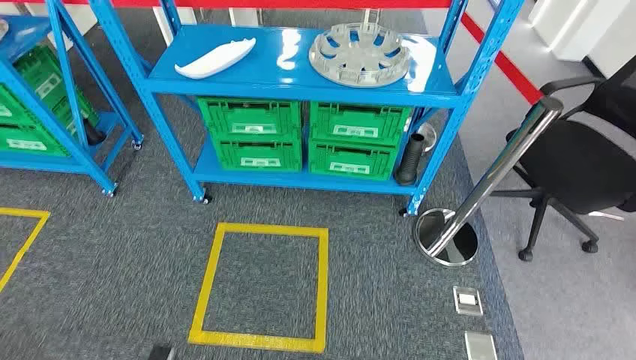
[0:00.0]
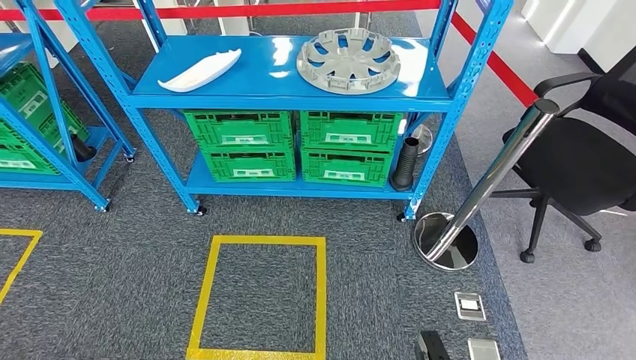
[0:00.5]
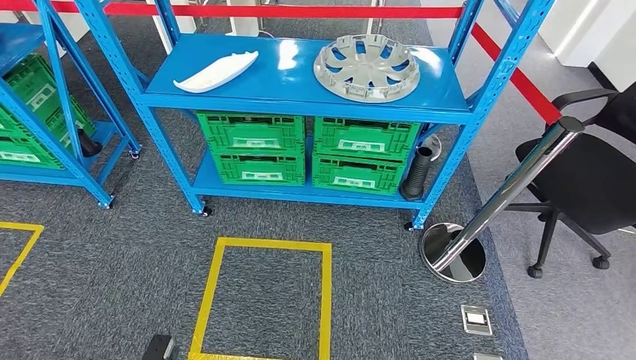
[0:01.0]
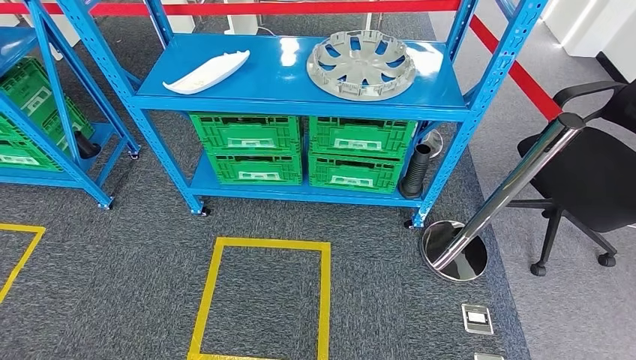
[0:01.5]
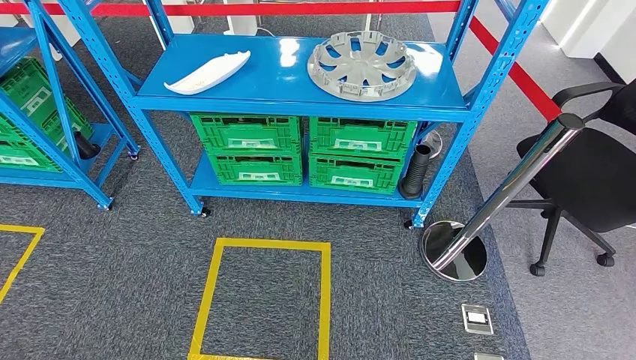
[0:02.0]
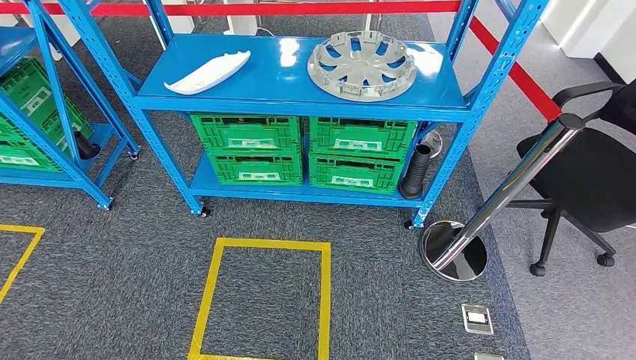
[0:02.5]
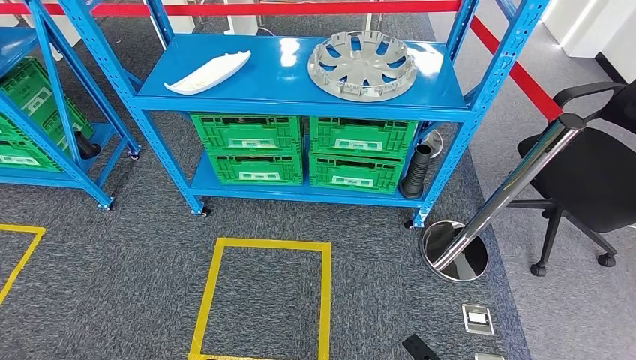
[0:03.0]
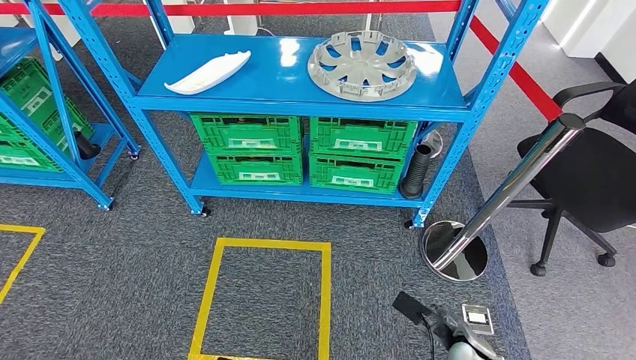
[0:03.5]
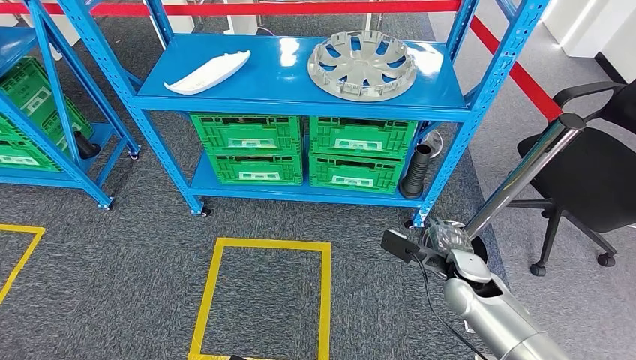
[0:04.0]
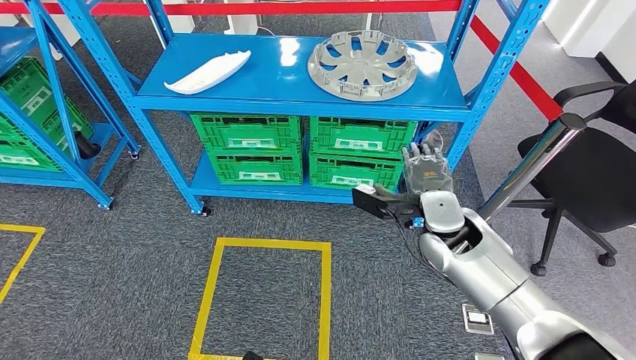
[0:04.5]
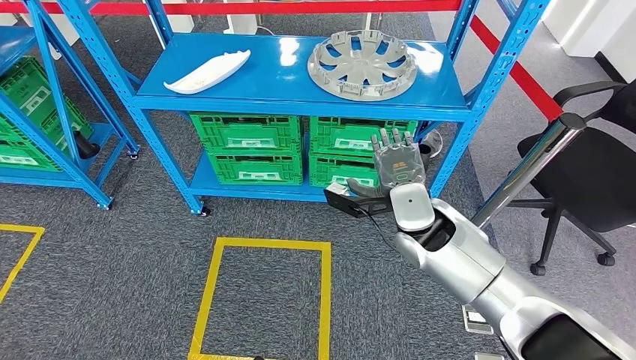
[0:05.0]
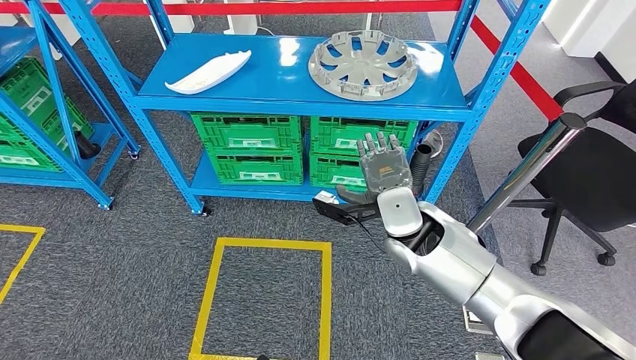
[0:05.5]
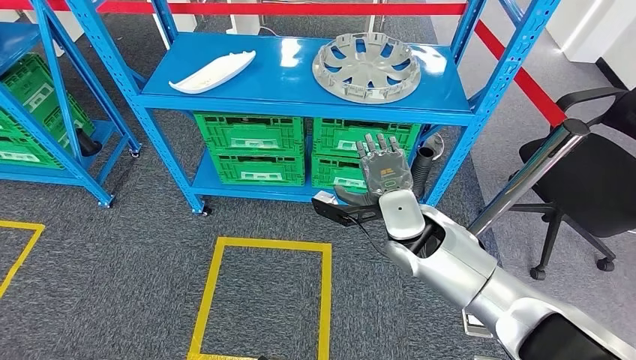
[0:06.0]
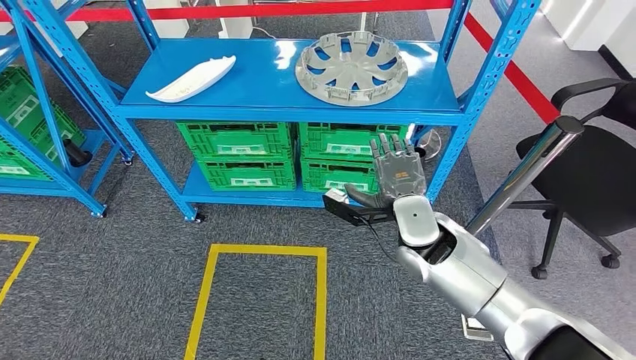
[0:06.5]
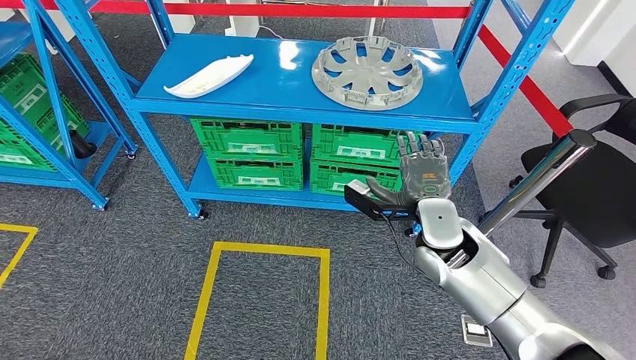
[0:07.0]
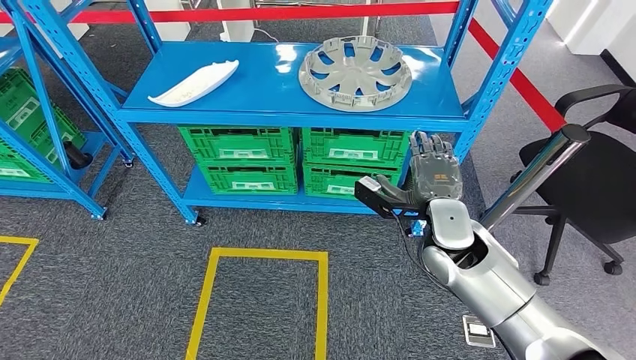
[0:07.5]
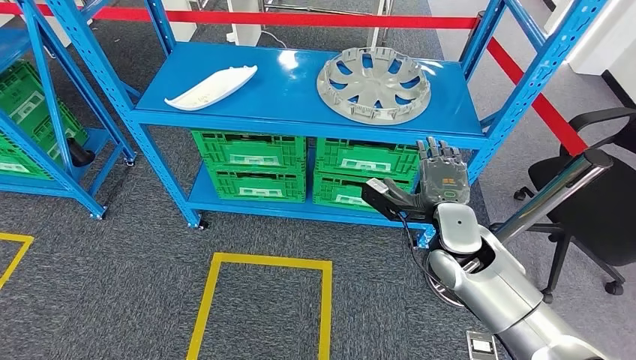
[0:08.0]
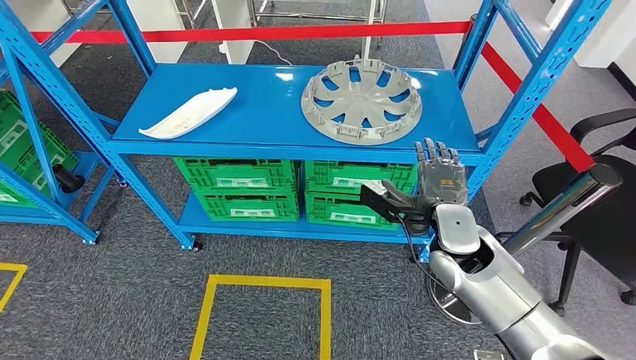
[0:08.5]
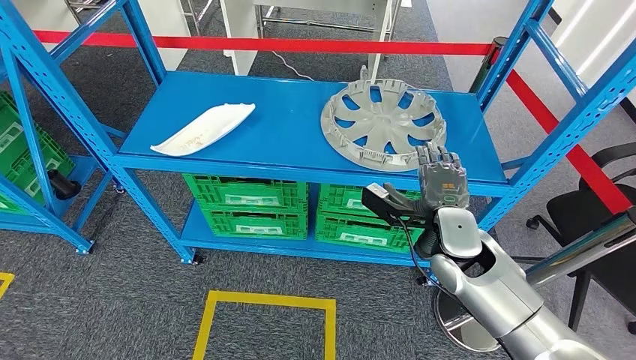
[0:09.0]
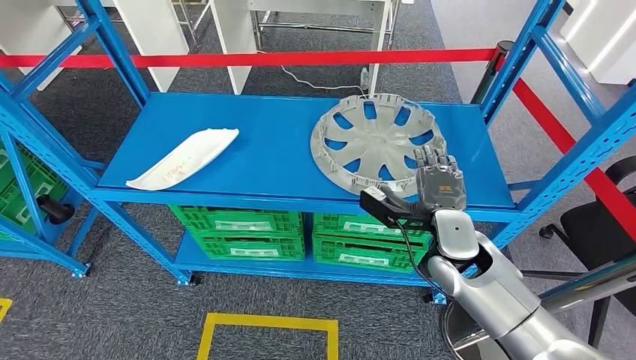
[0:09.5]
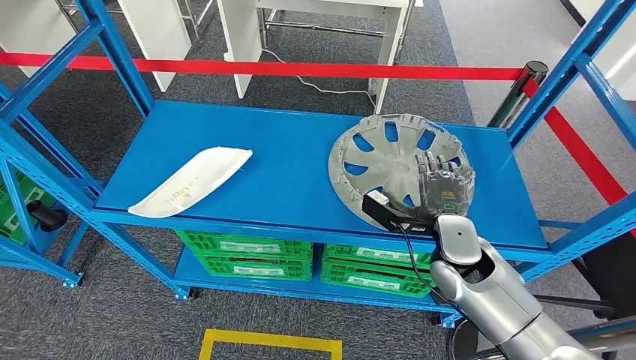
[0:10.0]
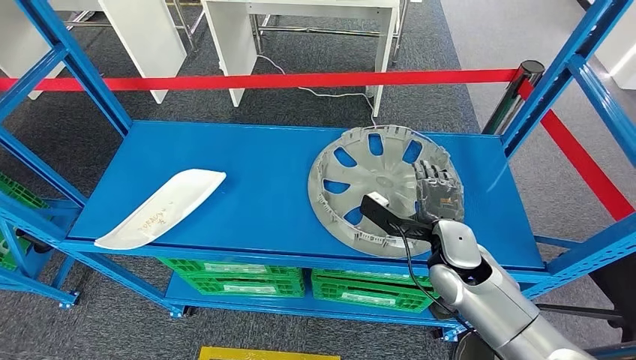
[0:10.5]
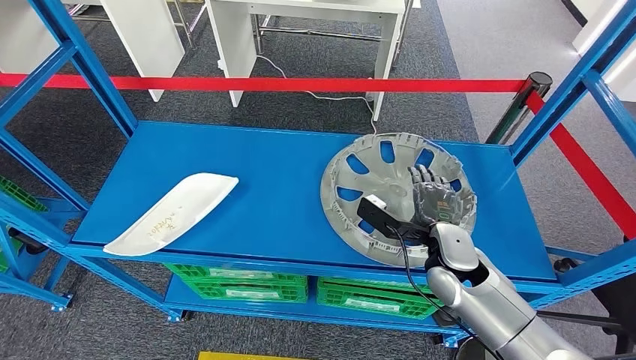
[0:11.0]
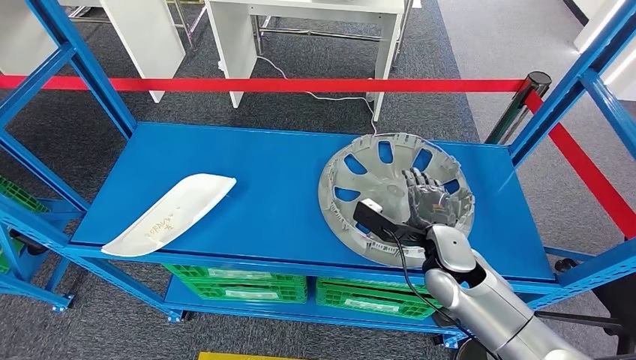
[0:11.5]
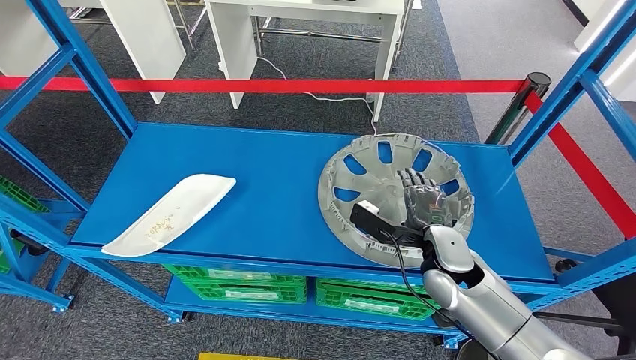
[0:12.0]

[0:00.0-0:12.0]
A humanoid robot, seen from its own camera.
0:02.0 to 0:04.0: The right hand travels forward and upward by approximately 35 cm.

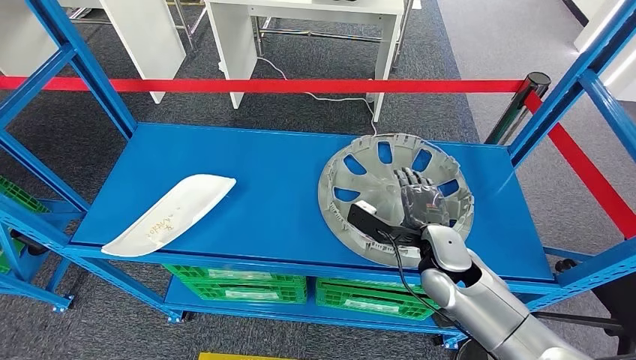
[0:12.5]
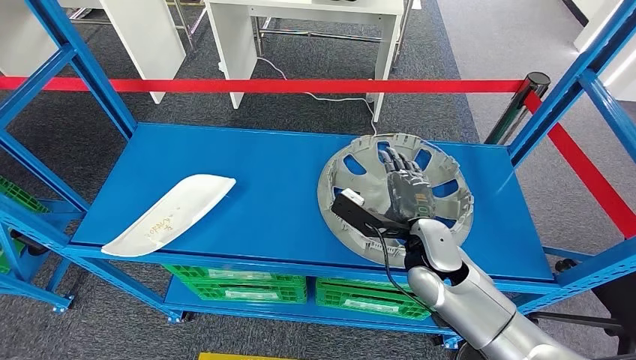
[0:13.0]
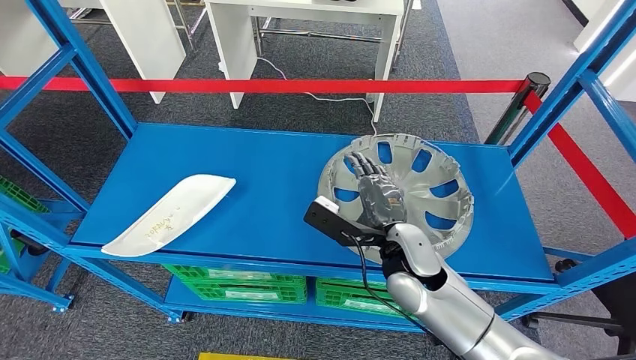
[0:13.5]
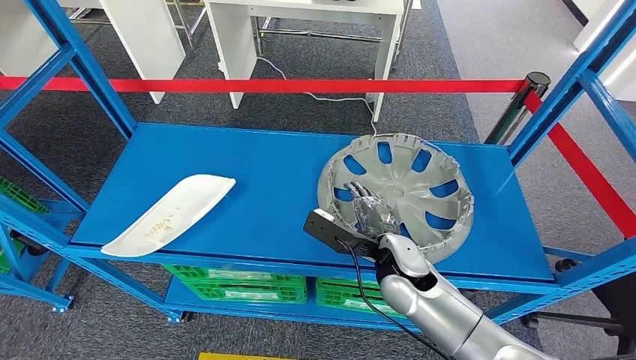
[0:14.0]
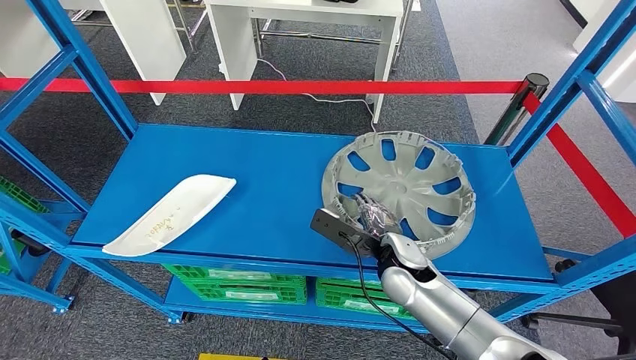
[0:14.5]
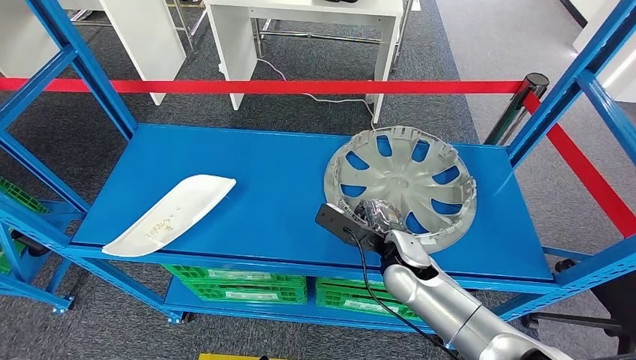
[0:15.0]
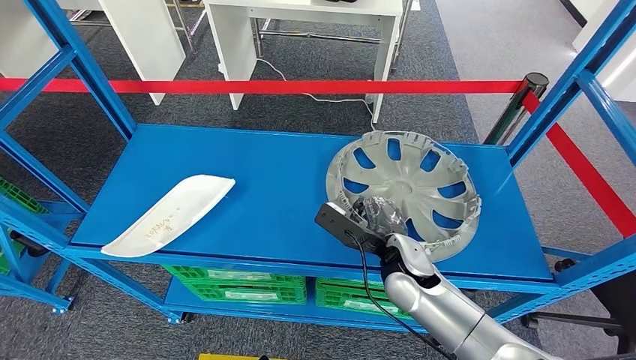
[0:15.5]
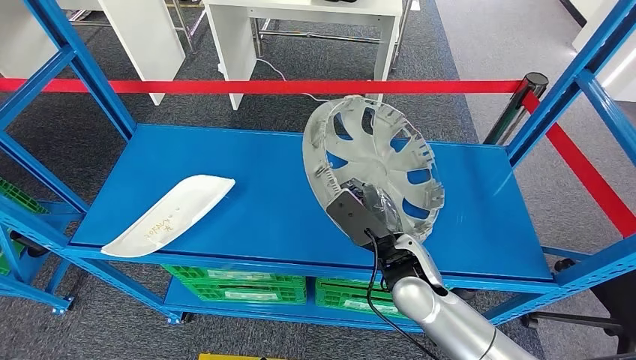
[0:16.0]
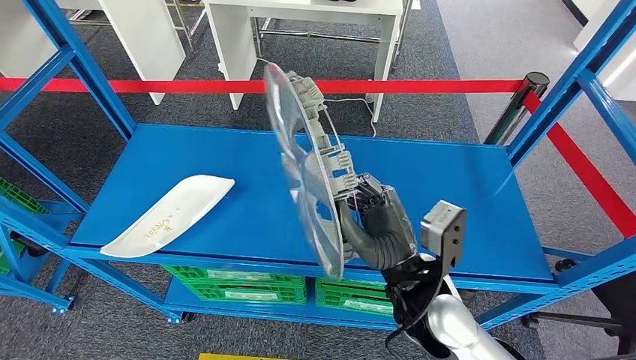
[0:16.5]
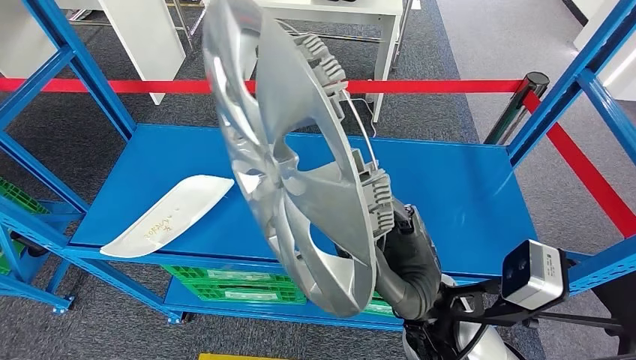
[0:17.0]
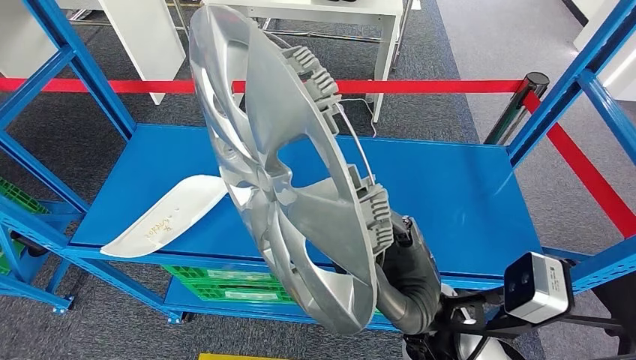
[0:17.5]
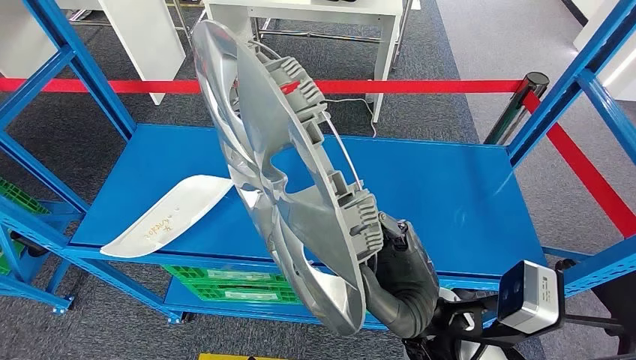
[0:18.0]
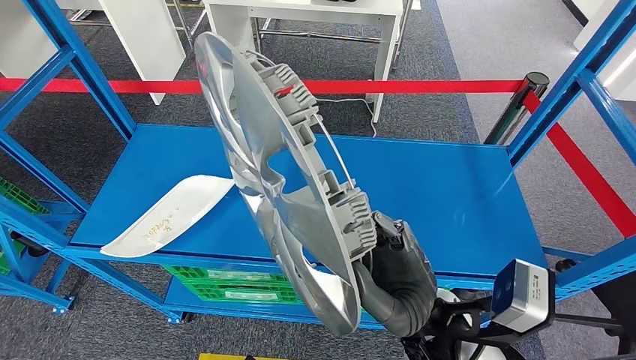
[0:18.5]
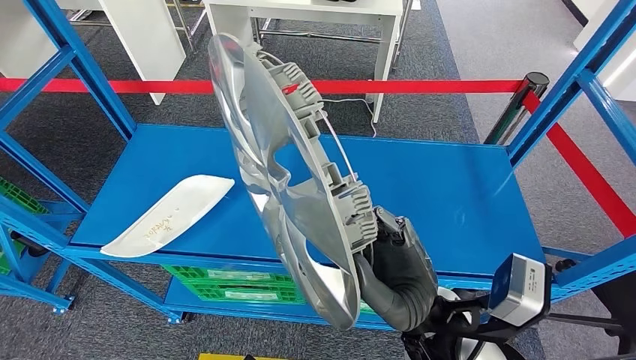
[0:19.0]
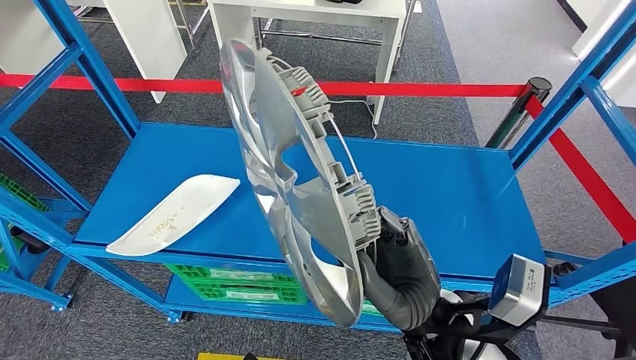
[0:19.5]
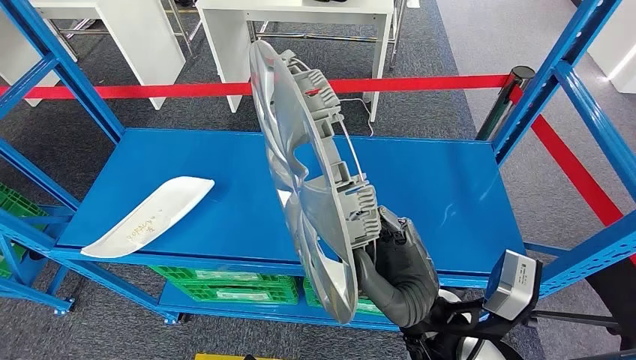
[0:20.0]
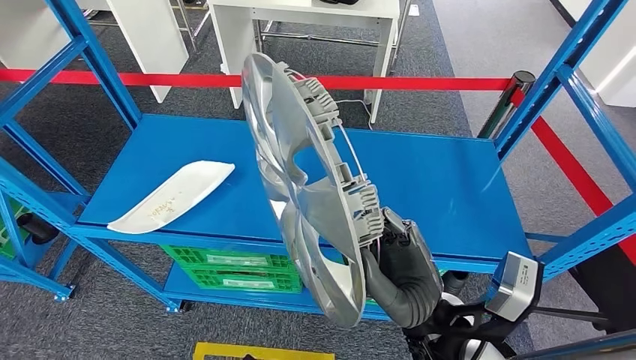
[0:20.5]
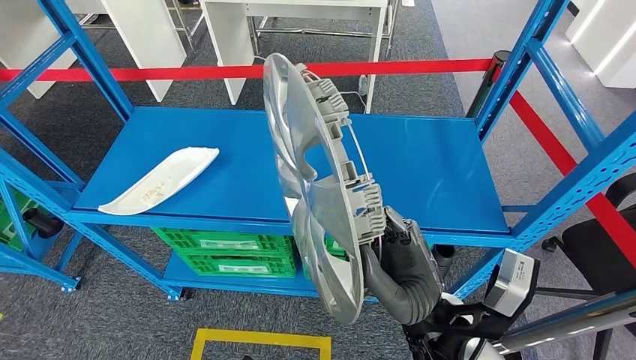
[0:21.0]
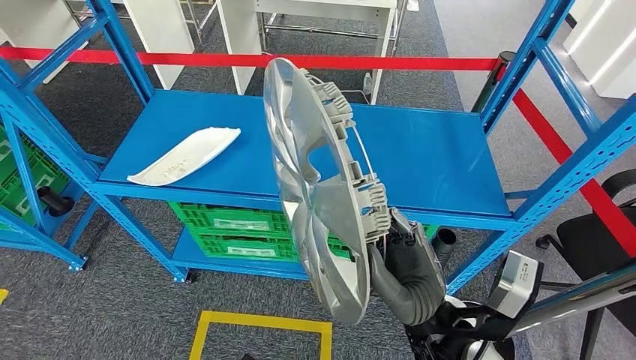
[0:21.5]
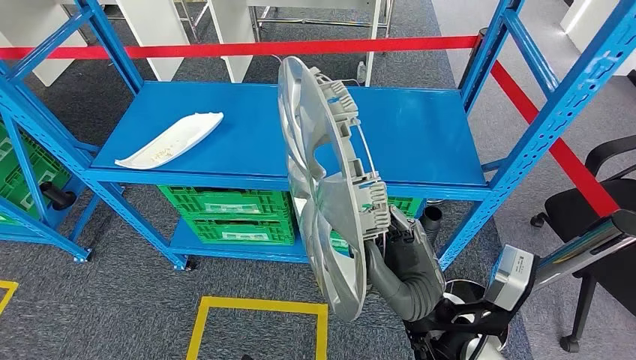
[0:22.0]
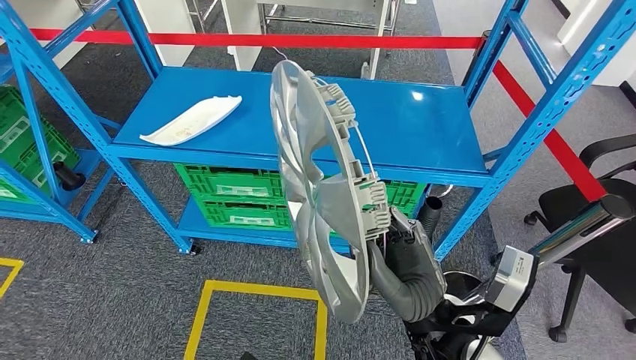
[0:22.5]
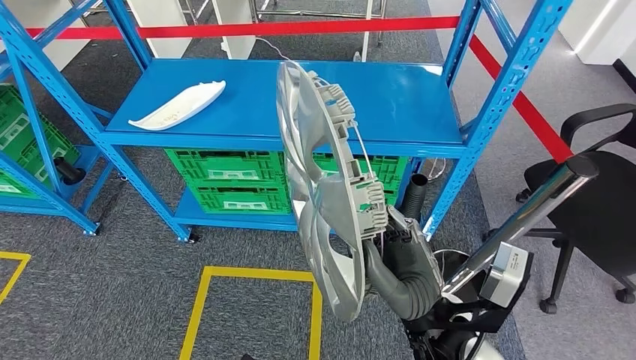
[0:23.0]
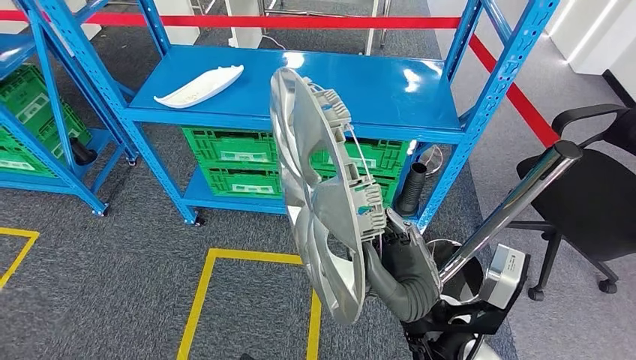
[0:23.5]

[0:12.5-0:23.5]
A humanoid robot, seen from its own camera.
Step, 0:12.5 to 0:17.5: Pick up the large material from the shelf.
0:12.5 to 0:14.5: The right hand is displaced to the left by about 5 cm.
0:14.5 to 0:16.0: The right hand ends up roughly 5 cm from where it was.
